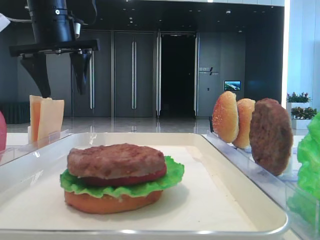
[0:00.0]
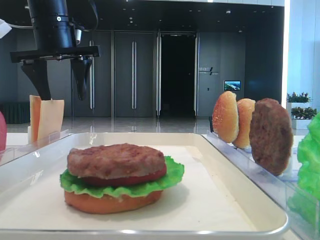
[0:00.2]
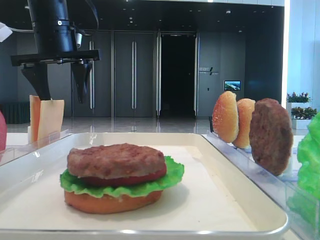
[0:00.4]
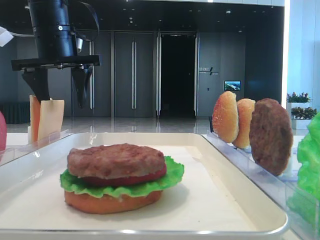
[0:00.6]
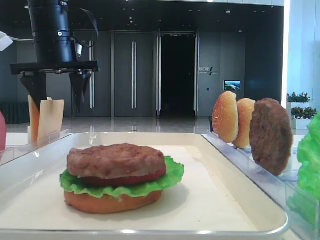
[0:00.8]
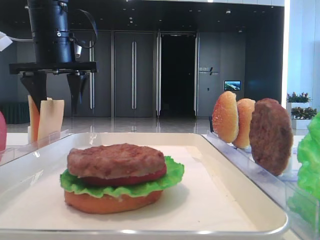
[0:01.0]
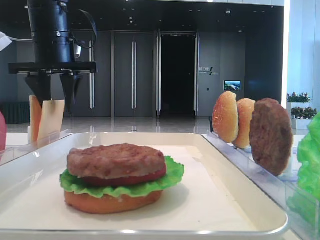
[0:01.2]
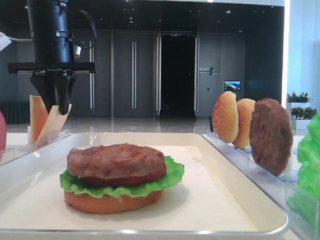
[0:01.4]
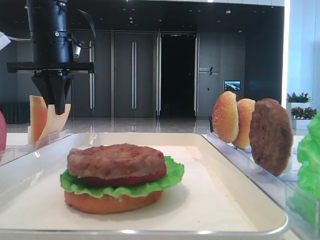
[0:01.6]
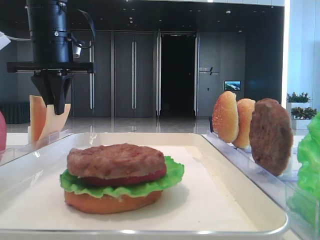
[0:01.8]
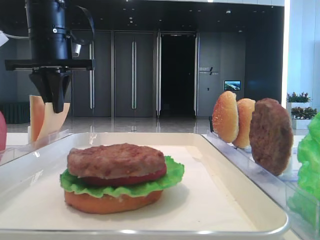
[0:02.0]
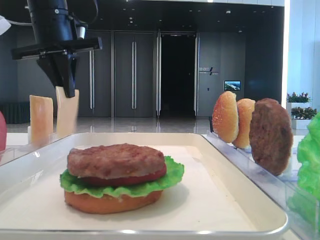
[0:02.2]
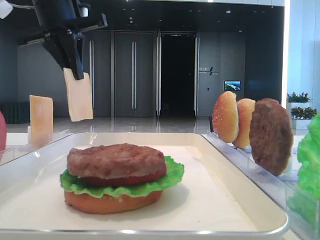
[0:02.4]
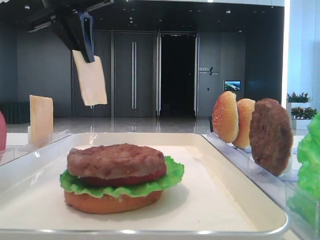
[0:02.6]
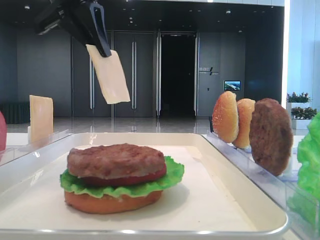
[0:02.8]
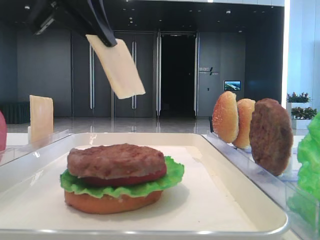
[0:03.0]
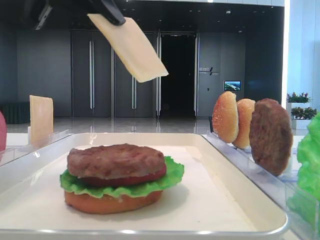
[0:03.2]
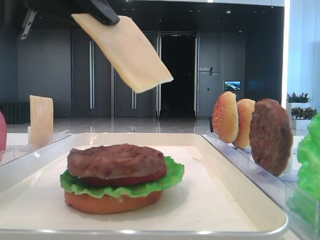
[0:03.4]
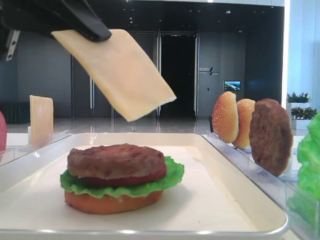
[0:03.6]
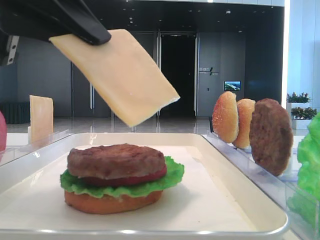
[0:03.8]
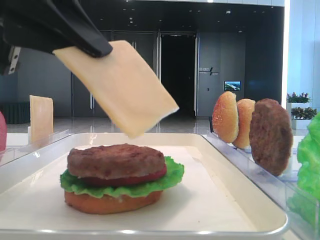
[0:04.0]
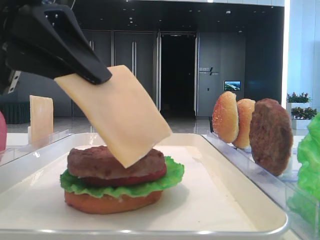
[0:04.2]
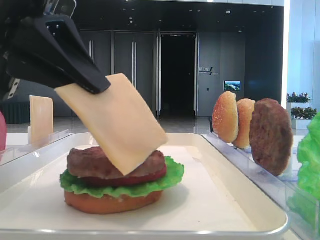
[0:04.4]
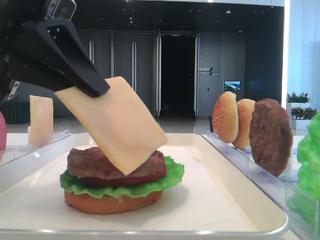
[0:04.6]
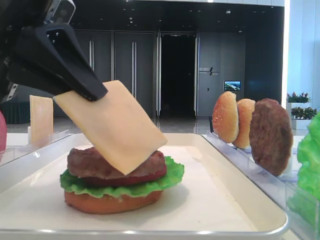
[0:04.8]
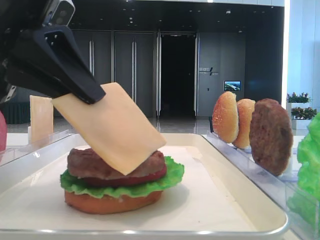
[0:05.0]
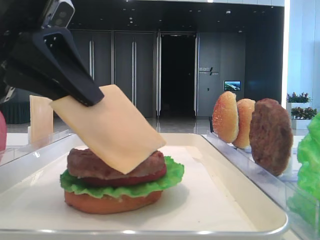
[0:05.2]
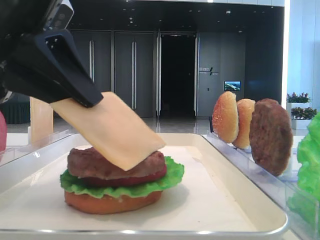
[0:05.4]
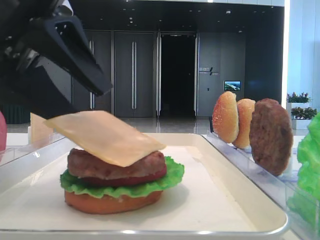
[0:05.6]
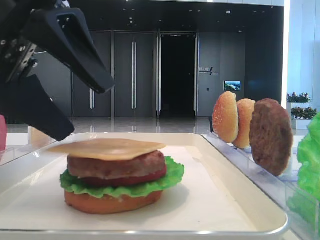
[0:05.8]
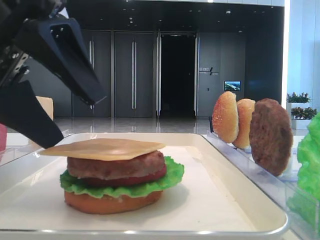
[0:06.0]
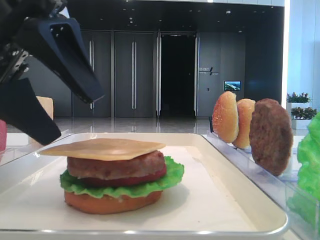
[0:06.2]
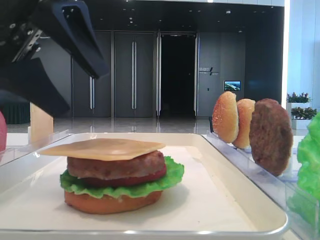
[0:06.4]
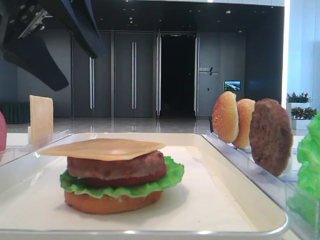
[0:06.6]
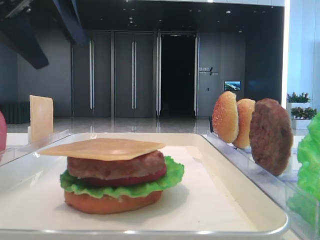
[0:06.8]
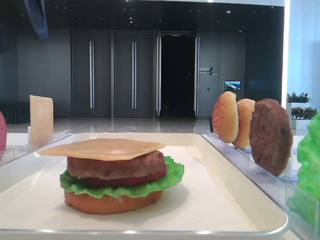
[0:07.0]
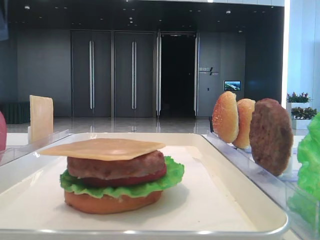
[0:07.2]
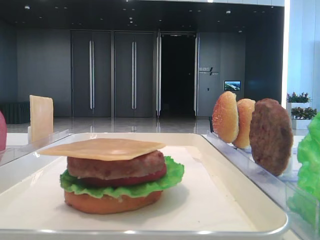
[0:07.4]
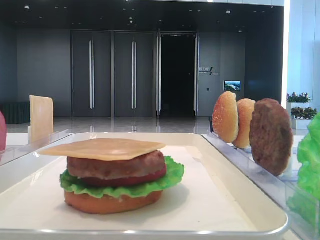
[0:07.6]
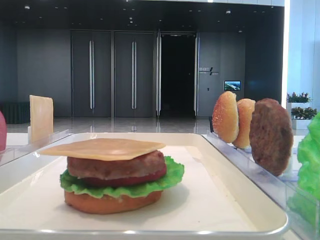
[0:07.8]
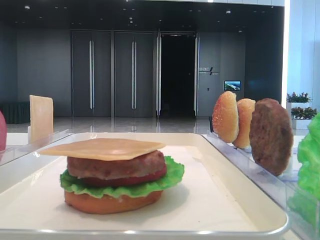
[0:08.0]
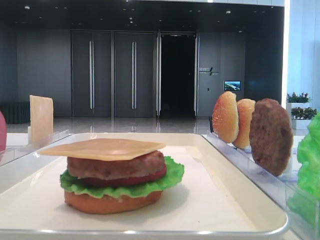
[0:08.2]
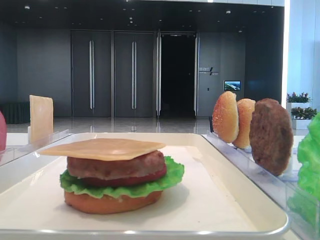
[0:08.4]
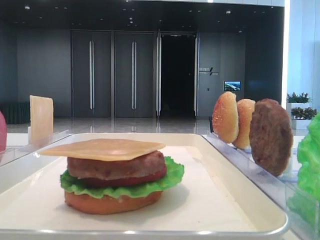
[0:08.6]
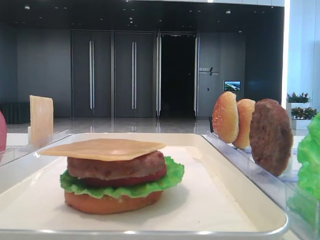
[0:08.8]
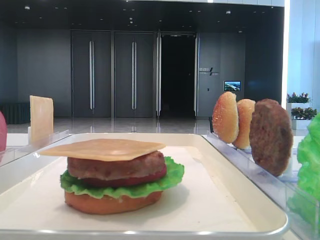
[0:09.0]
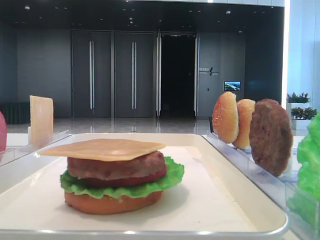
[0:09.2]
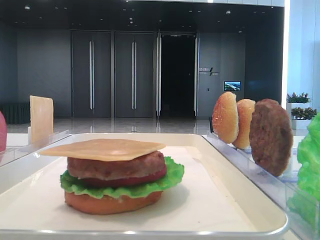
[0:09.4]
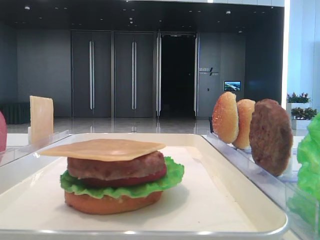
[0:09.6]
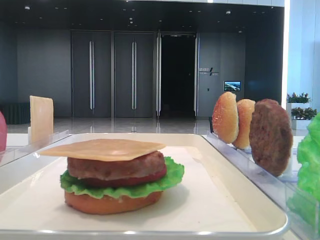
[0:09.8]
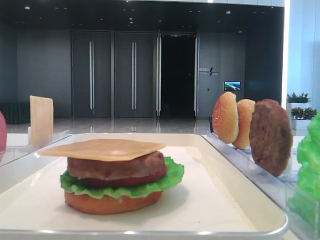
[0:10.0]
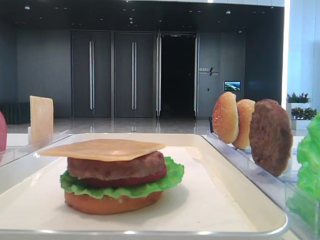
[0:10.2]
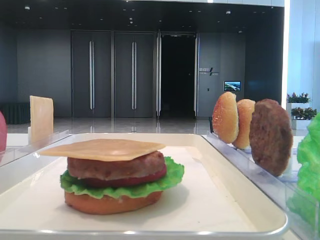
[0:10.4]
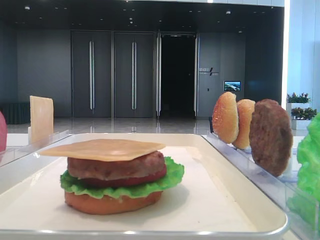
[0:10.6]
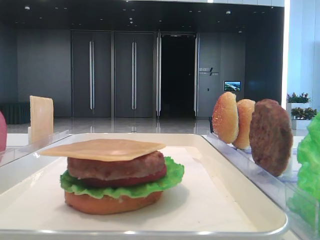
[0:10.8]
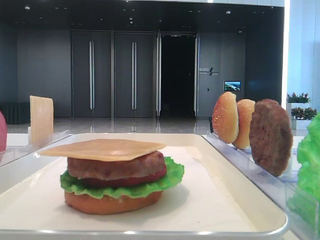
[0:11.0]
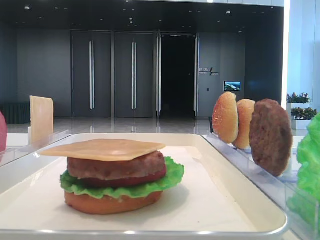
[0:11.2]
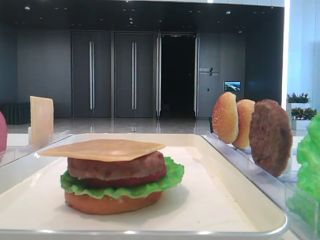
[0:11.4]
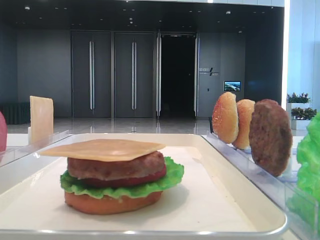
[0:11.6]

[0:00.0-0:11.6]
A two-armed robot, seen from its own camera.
Step, 0:02.0 to 0:05.8: Place the cheese slice on the patty with the left hand.
0:00.0 to 0:01.4: The left gripper closes.
0:01.4 to 0:02.8: The left gripper shifts approximately 10 cm upward and backward.
0:02.8 to 0:04.4: The left gripper moves backward and downward, roughly 15 cm.
0:04.4 to 0:05.8: The left gripper opens up.
0:05.8 to 0:07.2: The left gripper is displaced upward, to the left and forward by approximately 20 cm.
0:10.2 to 0:11.6: The two grippers keep their place.

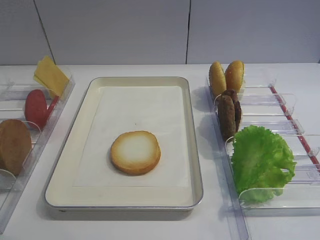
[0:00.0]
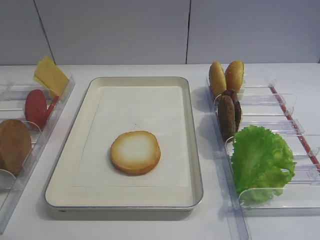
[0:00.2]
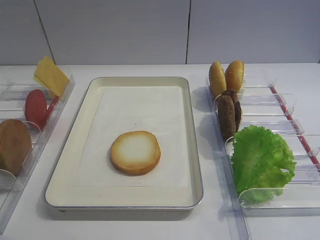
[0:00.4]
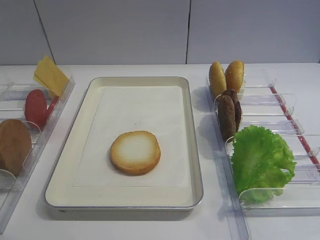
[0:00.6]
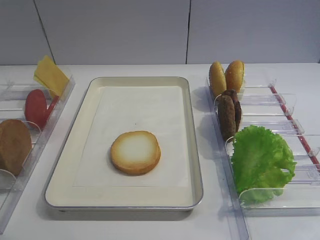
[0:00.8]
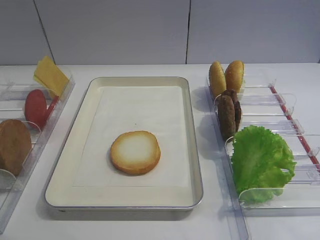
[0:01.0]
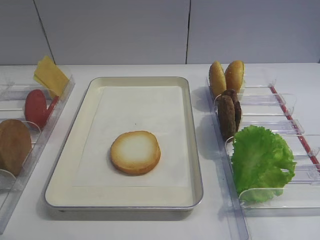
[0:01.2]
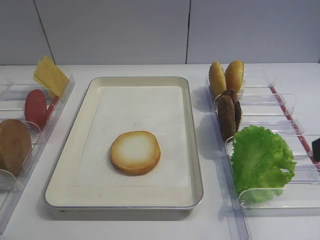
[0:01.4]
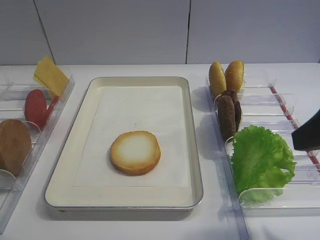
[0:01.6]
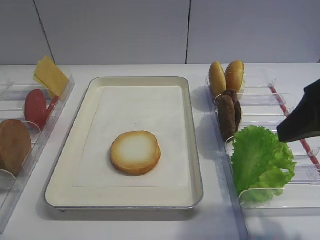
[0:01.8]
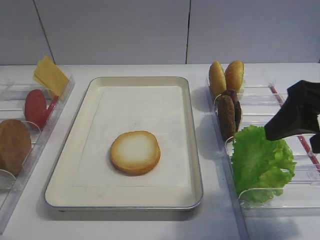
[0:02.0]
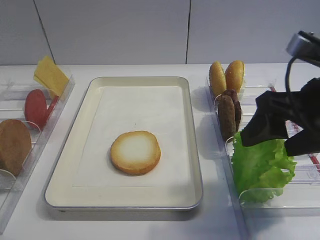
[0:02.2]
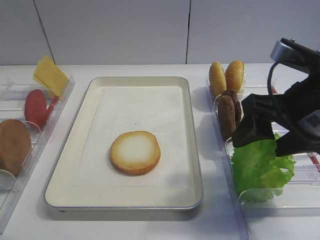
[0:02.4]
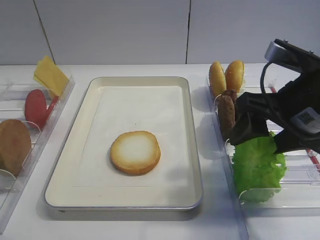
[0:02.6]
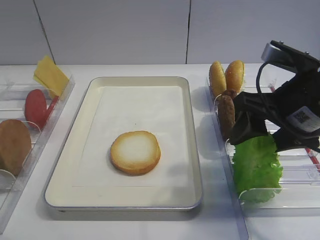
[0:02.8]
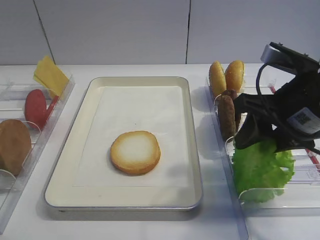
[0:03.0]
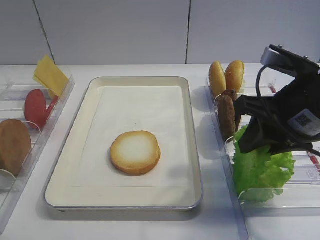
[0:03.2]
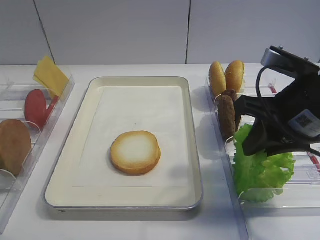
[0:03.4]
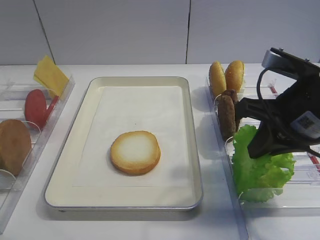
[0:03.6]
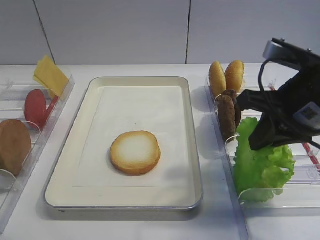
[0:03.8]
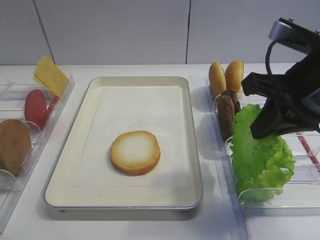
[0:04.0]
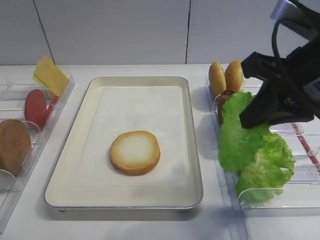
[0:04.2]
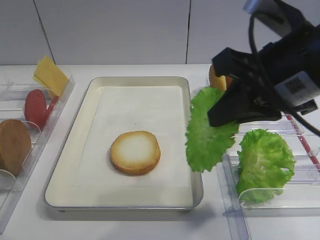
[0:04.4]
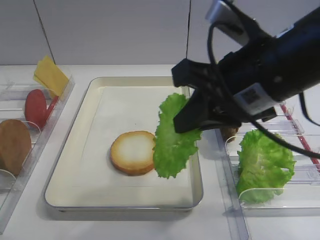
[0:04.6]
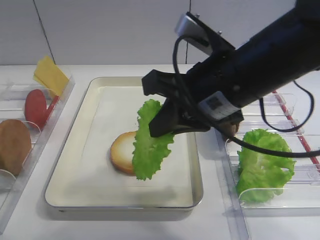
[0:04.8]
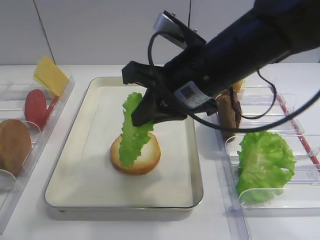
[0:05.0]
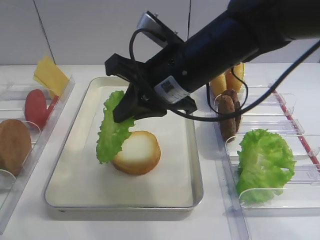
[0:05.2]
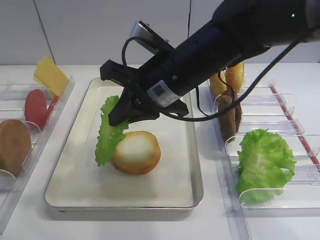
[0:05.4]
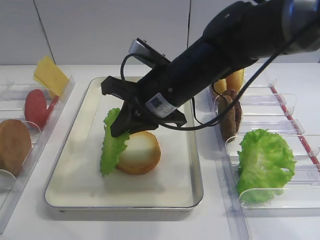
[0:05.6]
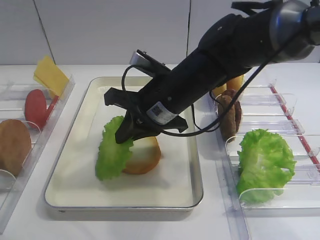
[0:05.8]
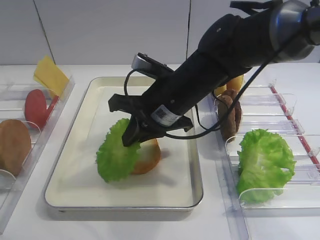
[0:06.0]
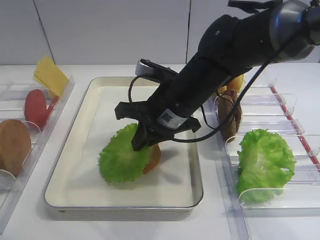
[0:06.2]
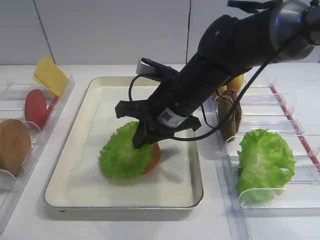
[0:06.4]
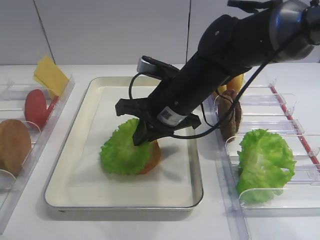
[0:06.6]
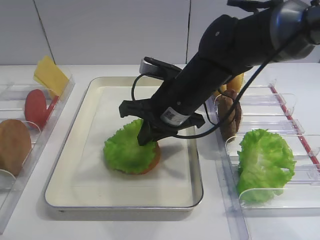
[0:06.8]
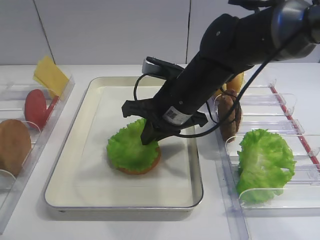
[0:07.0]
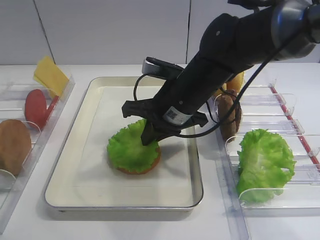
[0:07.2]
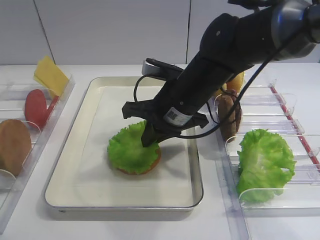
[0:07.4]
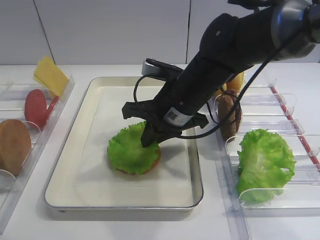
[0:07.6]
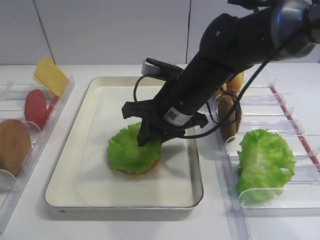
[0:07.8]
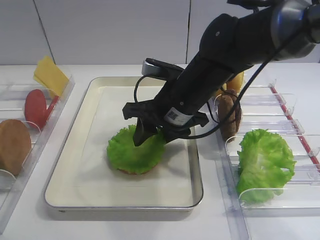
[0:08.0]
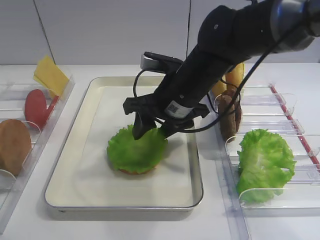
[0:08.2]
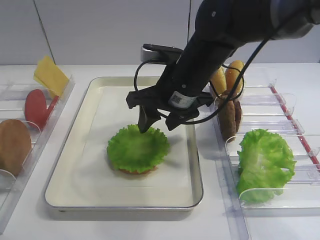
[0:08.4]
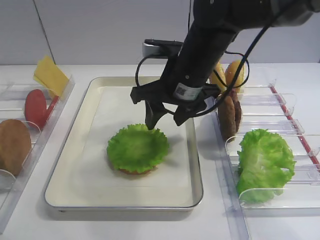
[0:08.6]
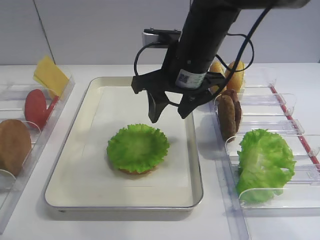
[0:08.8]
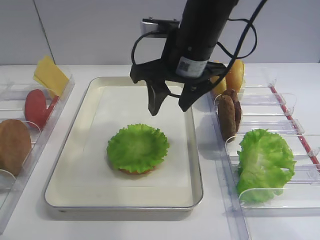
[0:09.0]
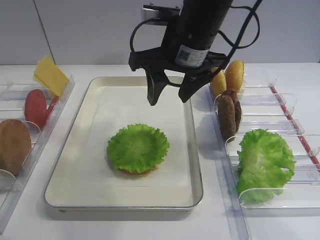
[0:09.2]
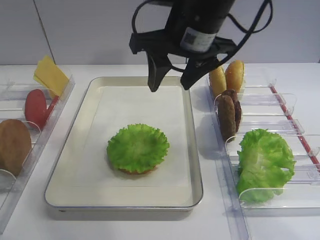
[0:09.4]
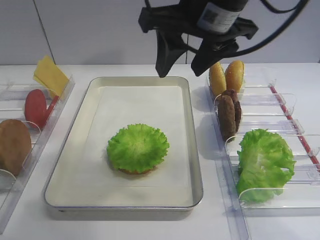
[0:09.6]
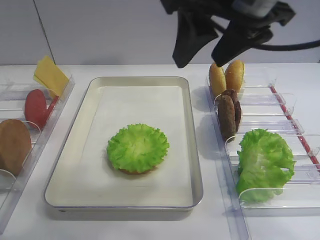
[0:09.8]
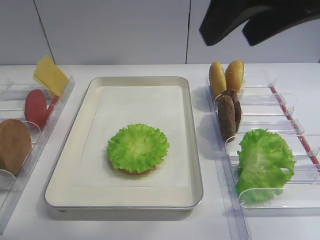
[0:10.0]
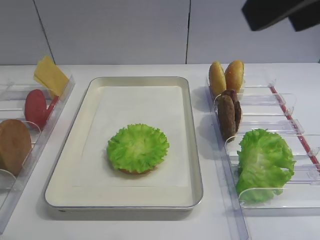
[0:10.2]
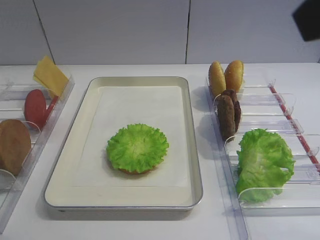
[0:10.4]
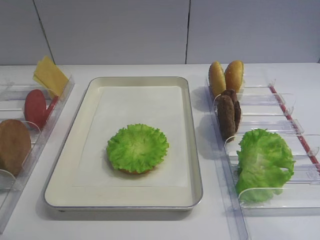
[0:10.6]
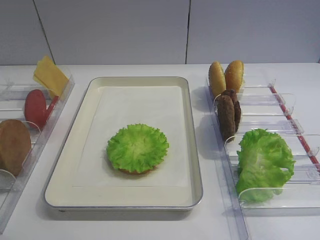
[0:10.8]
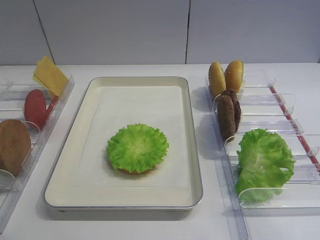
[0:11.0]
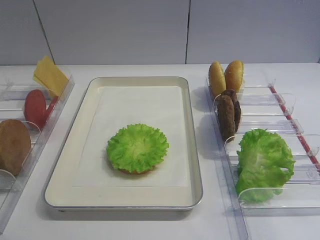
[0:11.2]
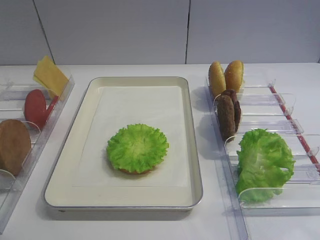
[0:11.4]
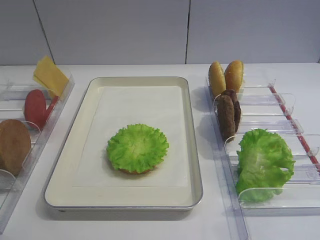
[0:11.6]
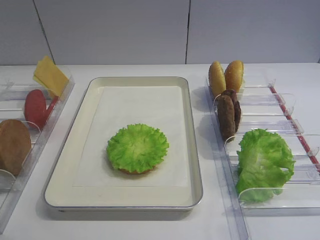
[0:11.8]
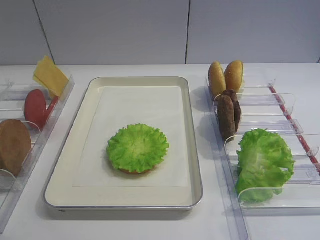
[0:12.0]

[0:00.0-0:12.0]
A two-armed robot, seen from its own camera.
Step, 0:00.0 to 0:04.2: Pick up the lettuce leaf with the right gripper.
Step, 0:04.4 to 0:08.4: Place the lettuce leaf on the bread slice with the right gripper.
0:01.6 to 0:03.0: The right gripper is displaced forward and downward by roughly 10 cm, and closes its fingers.
0:03.0 to 0:04.4: The right gripper moves upward, roughly 5 cm, and closes.
0:04.4 to 0:06.0: The right gripper is displaced to the left, downward and forward by some 20 cm.
0:06.0 to 0:07.6: There are only small adjustments of the grippers.
0:07.6 to 0:09.0: The right gripper shifts approximately 10 cm upward, and opens its fingers.
0:09.0 to 0:10.4: The right gripper goes roughly 30 cm backward, upward and to the right.
0:10.4 to 0:12.0: The right gripper shifts roughly 20 cm downward, backward and to the right.
